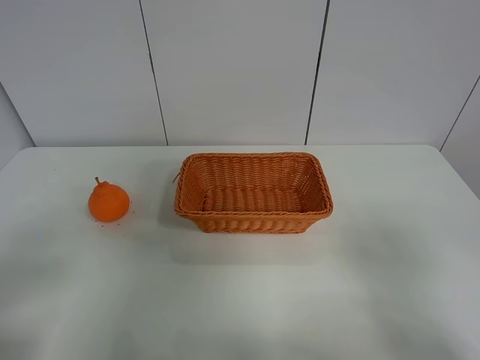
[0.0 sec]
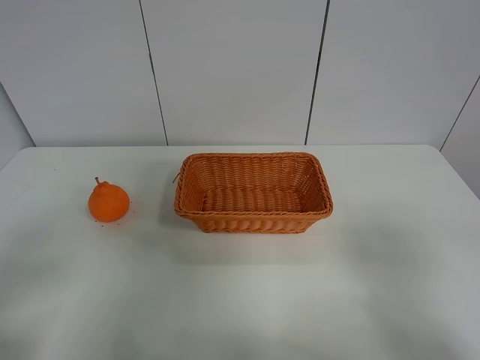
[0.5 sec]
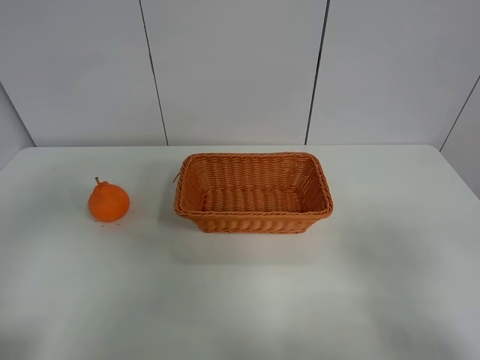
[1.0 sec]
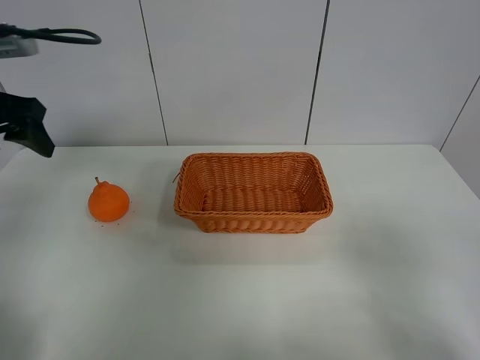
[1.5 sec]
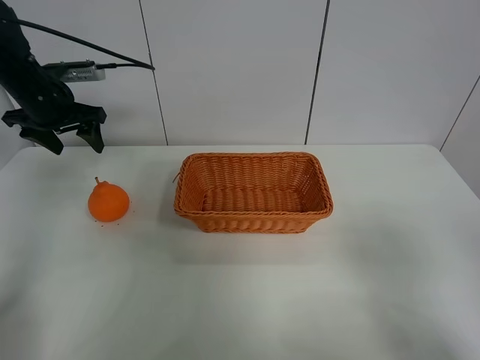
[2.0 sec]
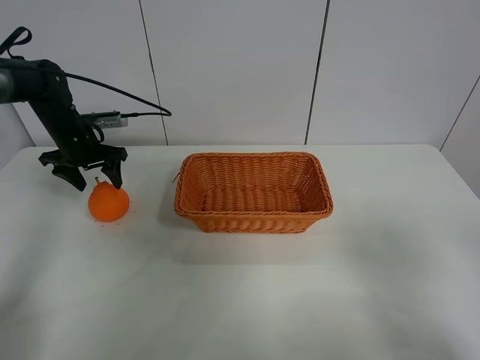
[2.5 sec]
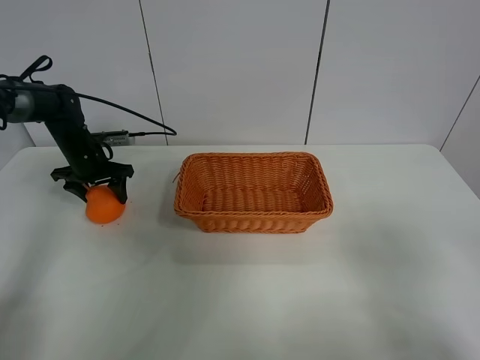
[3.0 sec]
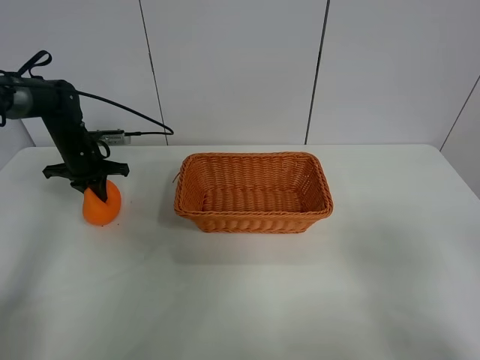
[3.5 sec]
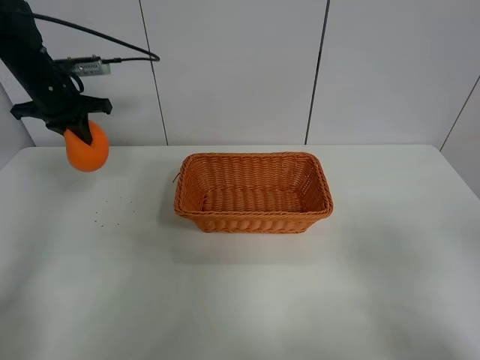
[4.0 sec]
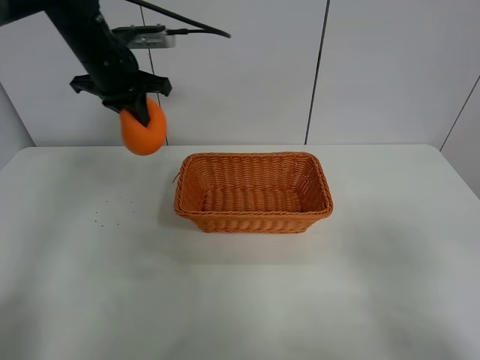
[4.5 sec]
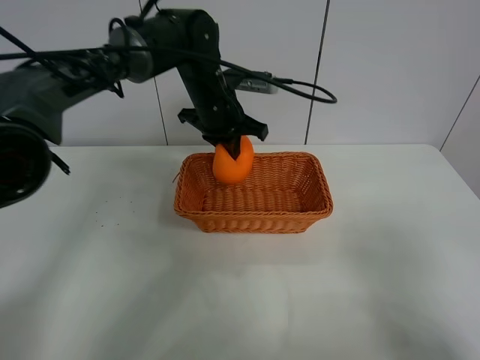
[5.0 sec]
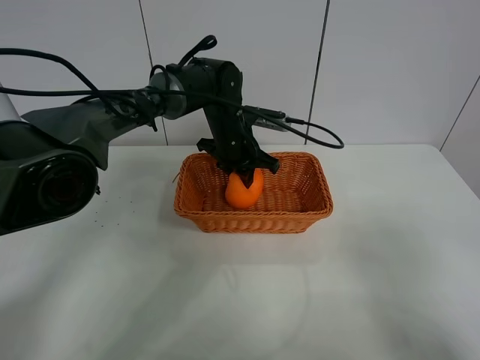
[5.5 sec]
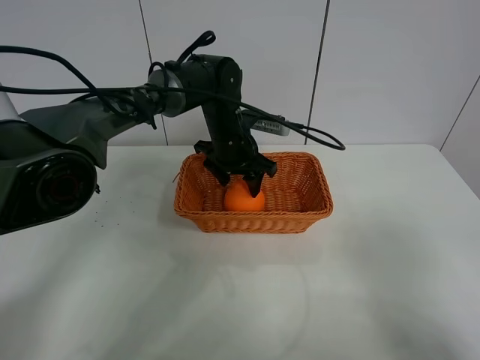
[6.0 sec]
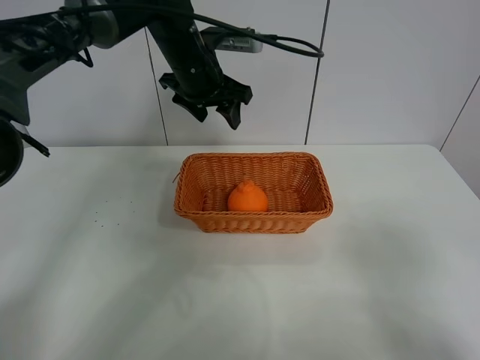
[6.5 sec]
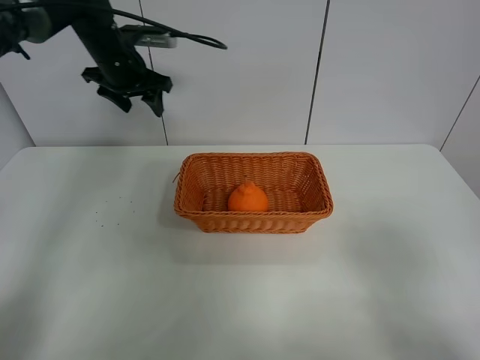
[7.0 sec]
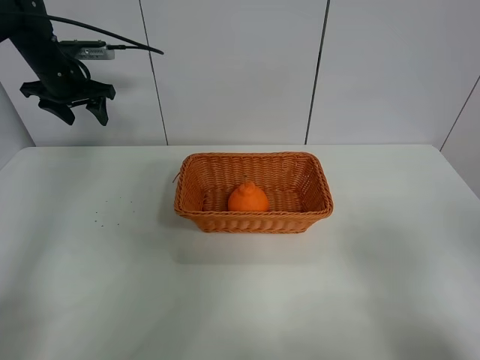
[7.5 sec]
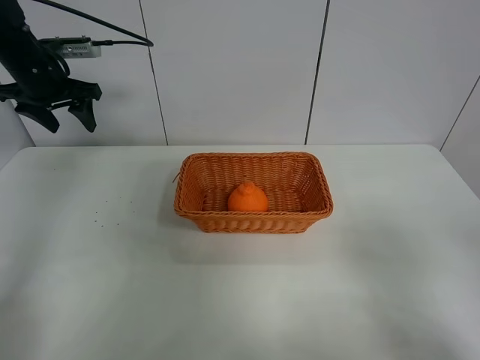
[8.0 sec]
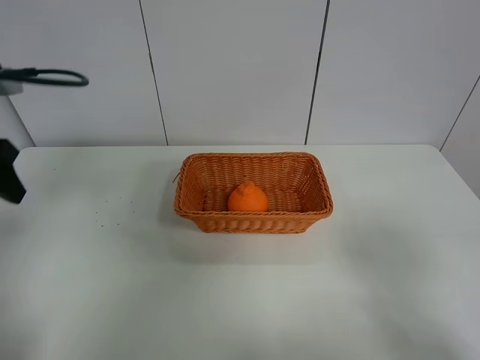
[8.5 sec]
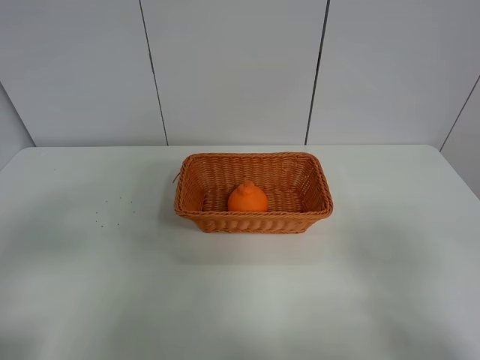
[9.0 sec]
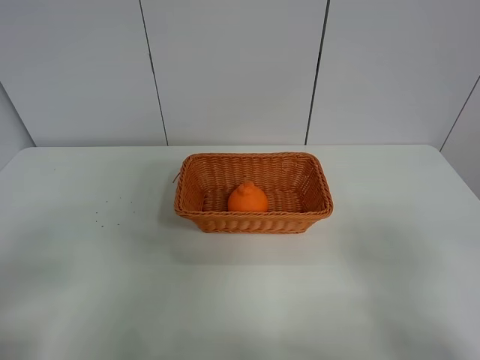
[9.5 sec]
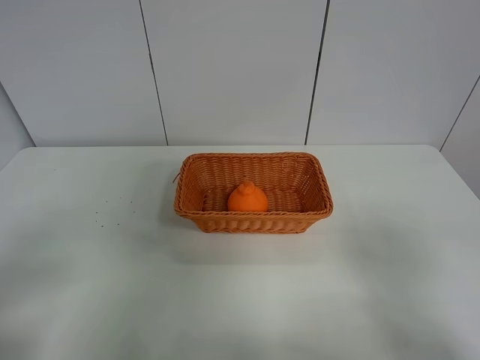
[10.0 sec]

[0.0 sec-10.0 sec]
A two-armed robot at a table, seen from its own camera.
Task of the whole recording: left gripper grabs oranges and puts them in the basket.
Step, 0.0 sec to 3.0 sec: Grasp the orange with left gripper.
Step, 3.5 sec to 6.5 sec: Place the orange in the basket with left gripper.
0.0 sec to 2.0 sec: The left gripper goes approximately 40 cm forward.
2.0 sec to 4.0 sec: The left gripper moves roughly 15 cm downward and comes back, and closes up.
4.0 sec to 6.0 sec: The left gripper is displaced to the right by roughly 30 cm, and opens up.
6.0 sec to 8.0 sec: The left gripper travels to the left by roughly 30 cm.
8.0 sec to 10.0 sec: The left gripper is displaced backward by about 40 cm.
